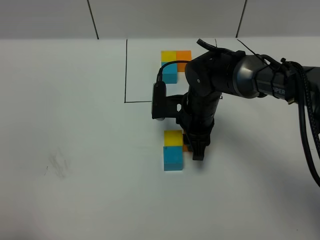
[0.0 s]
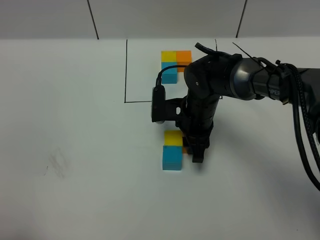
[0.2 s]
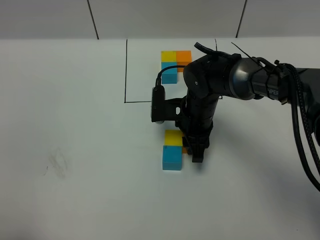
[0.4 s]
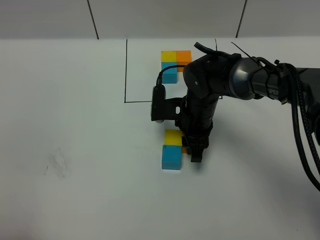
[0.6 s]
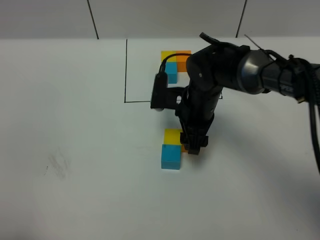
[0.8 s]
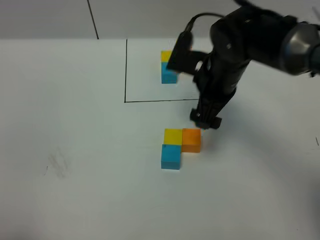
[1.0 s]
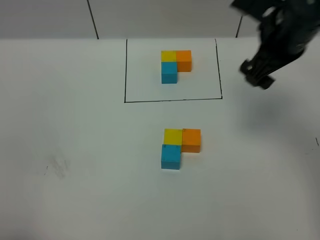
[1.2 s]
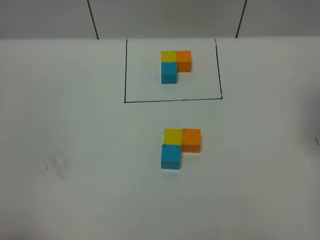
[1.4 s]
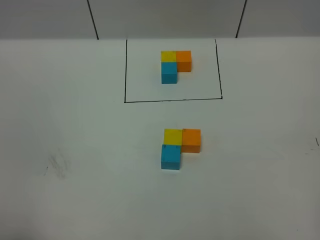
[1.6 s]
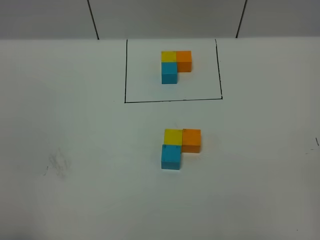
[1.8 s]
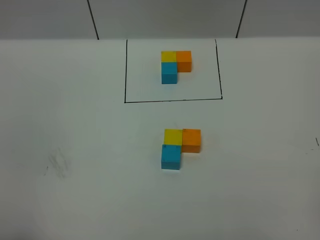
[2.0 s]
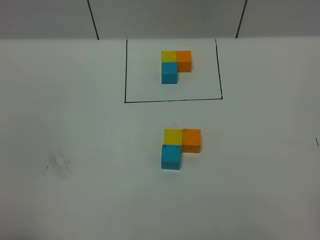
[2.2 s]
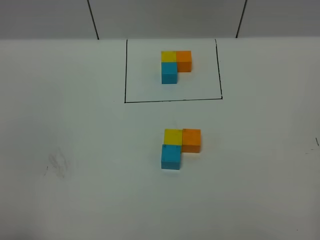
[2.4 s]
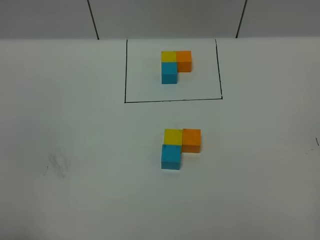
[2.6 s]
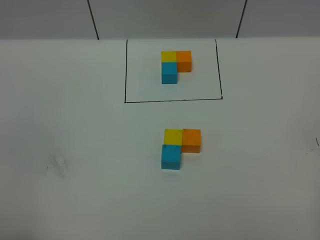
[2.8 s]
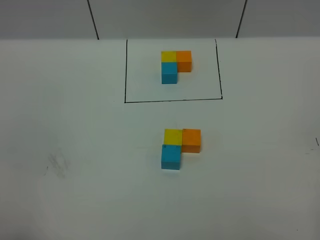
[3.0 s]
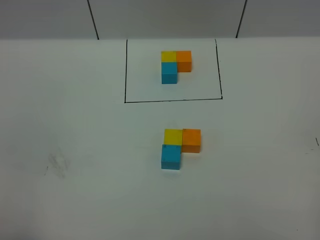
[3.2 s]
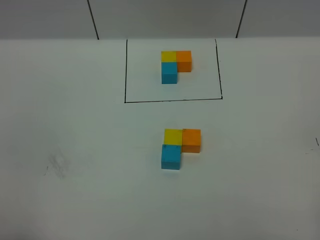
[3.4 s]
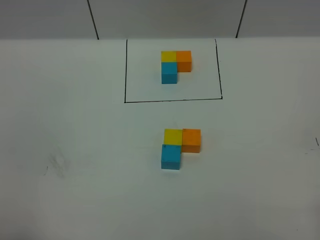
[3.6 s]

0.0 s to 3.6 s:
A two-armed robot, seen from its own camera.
Task of the whole recording: According to the building block template in front, assemble the scattered blocks together.
0.0 to 1.8 s: The right gripper goes some 50 cm to the right, backward and upward, and opens.

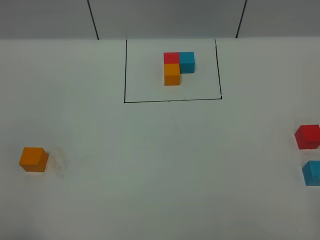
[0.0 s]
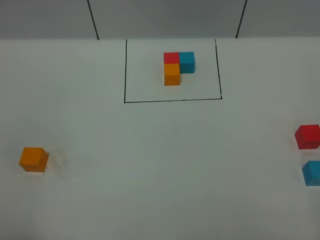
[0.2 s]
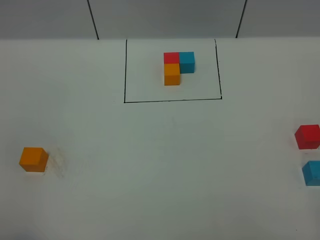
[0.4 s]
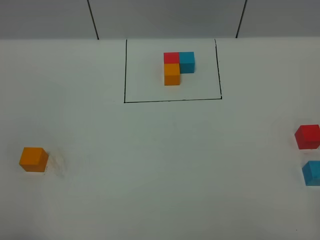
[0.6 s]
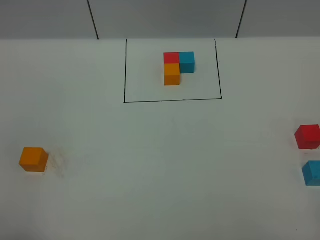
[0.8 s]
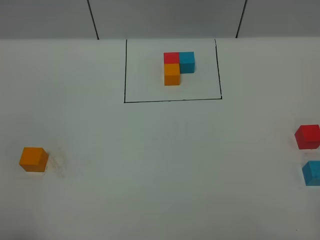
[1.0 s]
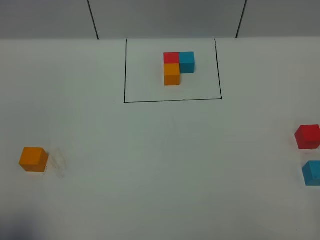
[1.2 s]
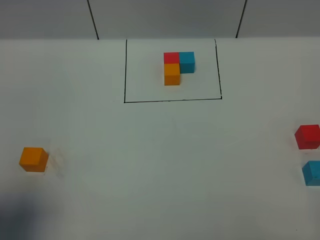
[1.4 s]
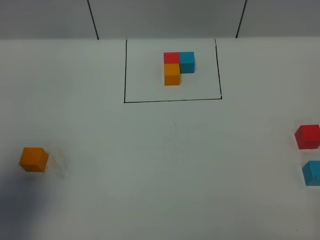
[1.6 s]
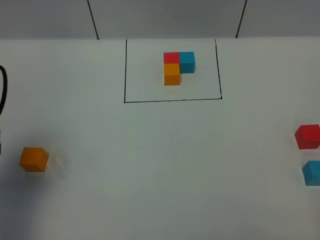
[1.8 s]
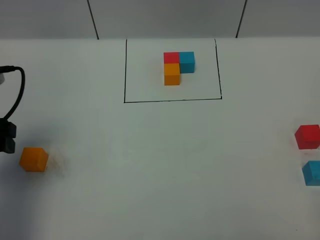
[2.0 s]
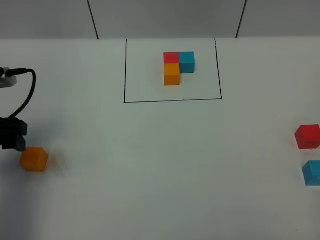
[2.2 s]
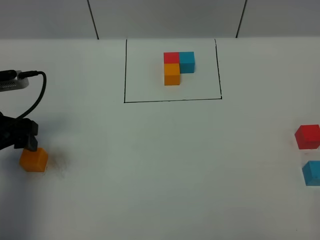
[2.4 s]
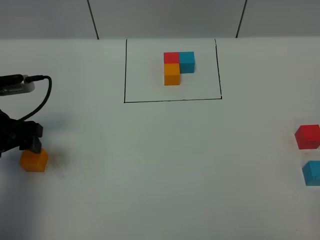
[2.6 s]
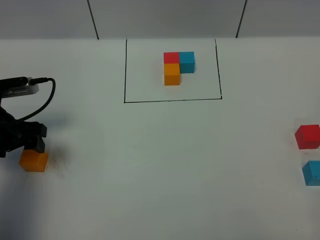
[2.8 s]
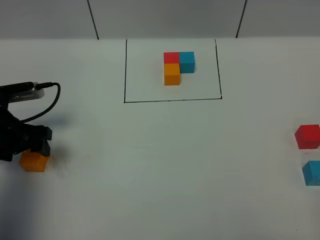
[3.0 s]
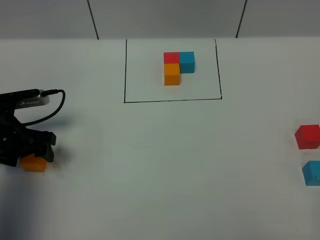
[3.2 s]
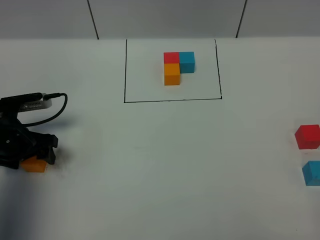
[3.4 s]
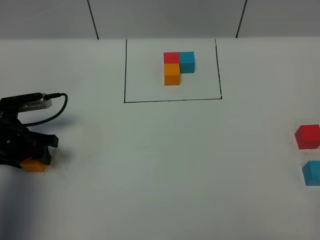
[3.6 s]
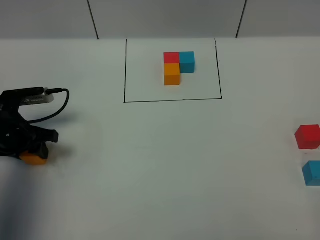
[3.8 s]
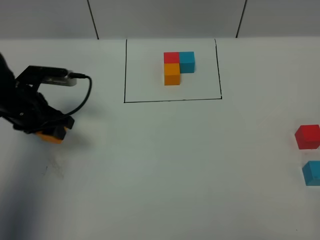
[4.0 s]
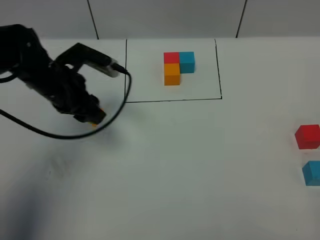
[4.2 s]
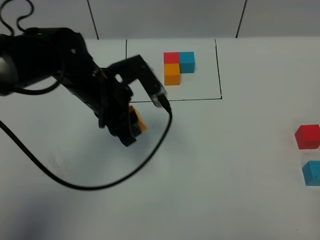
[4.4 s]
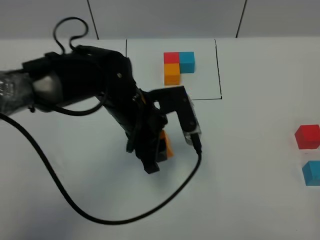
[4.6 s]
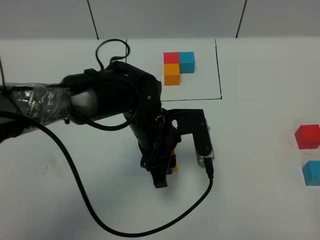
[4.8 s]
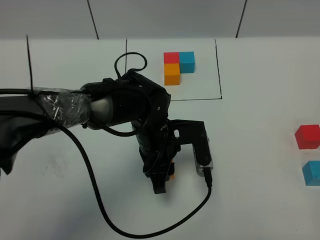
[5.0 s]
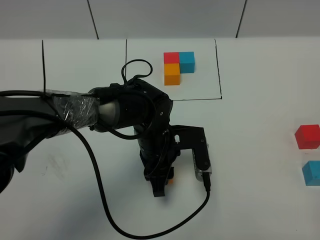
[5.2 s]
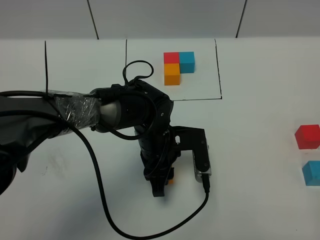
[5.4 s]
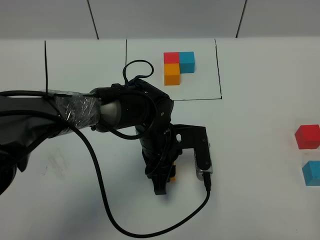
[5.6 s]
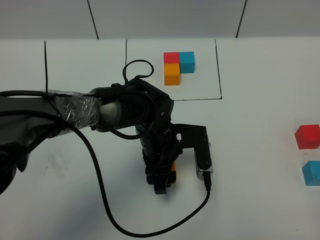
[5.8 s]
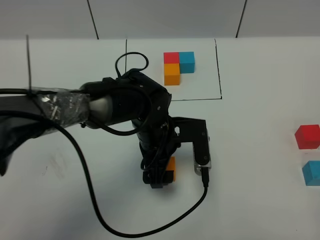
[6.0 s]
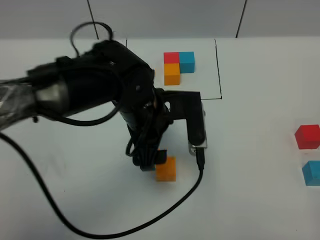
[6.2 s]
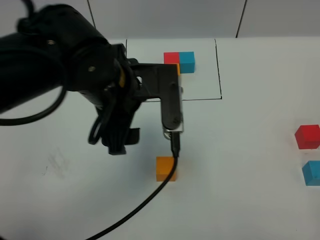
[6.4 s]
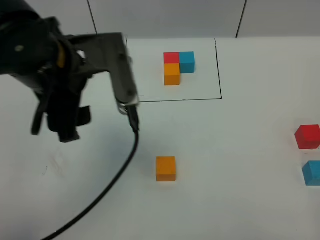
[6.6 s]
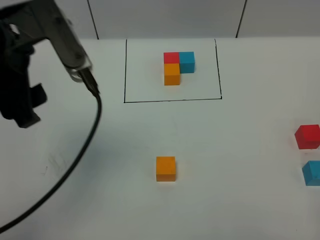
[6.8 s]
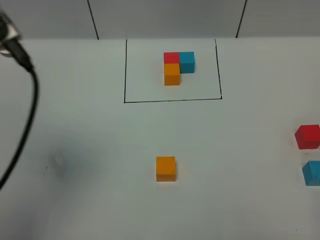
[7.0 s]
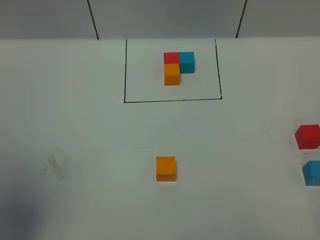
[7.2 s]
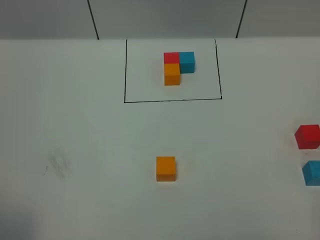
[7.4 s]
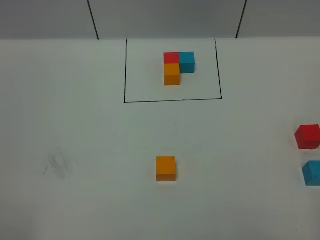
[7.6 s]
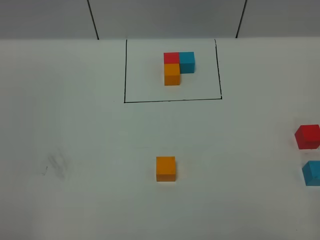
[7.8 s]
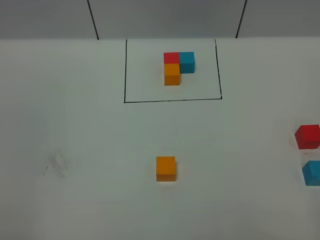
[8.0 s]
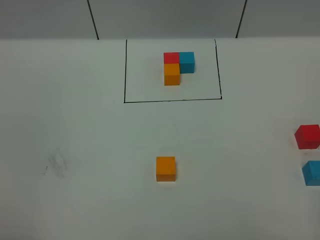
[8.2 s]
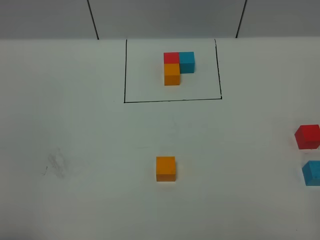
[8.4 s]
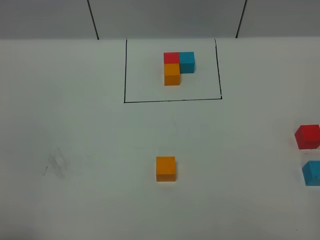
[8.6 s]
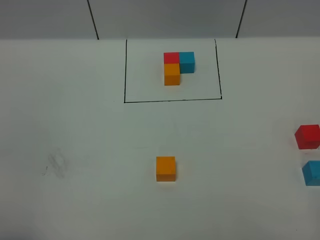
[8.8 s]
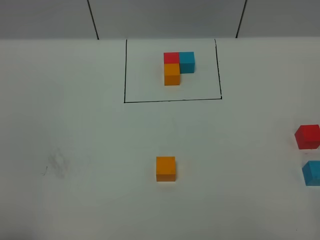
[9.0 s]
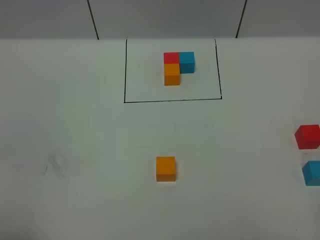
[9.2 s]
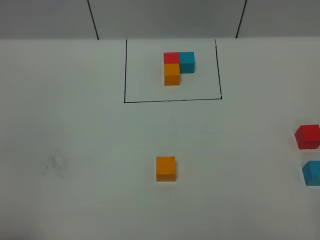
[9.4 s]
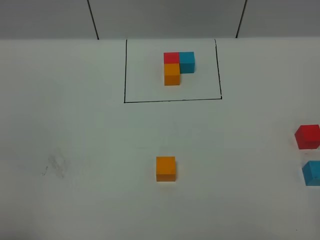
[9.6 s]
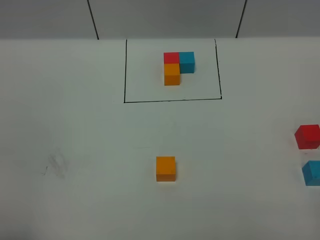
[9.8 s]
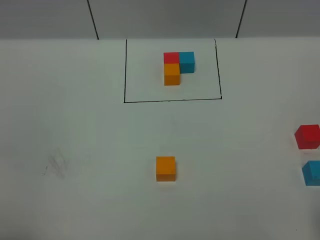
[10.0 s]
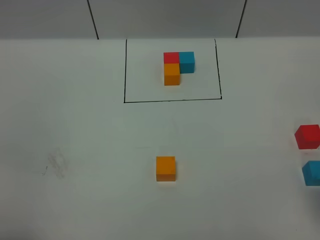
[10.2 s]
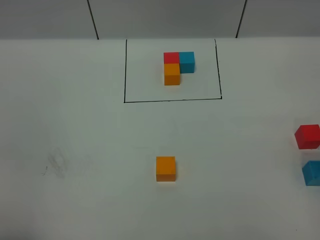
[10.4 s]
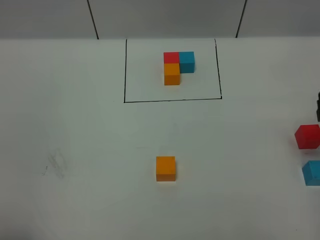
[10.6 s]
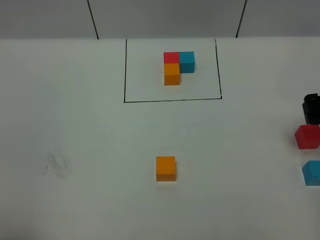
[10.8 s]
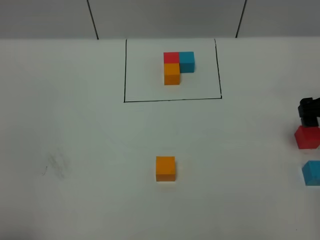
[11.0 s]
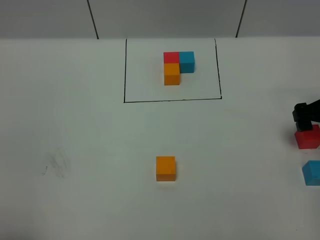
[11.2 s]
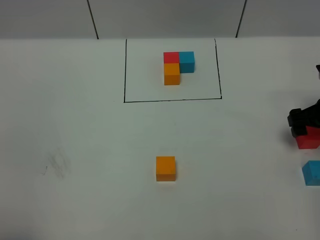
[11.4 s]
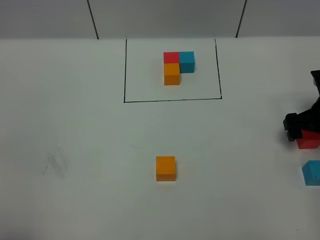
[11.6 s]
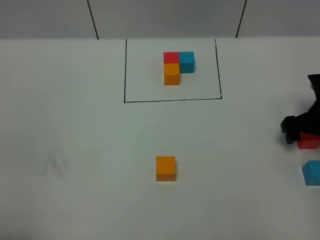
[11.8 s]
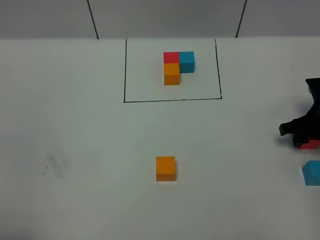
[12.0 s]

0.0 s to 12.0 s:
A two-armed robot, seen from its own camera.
Task of the whole recording: According to the building block template in front, assemble the scattered blocks together.
Step, 1.8 to 6.0 s: Put the orange cube in the center of the table.
0.0 to 1.6 s: The left gripper travels forward by about 15 cm.
1.6 to 3.0 s: The left gripper shifts approximately 20 cm downward and forward.
3.0 to 4.4 s: The left gripper heads to the right, covering some 20 cm, and closes up.
4.4 to 6.0 s: The left gripper travels to the right and downward by about 10 cm, and opens up.
6.0 to 7.6 s: The left gripper moves backward, to the left and upward, some 50 cm.
10.4 to 12.0 s: The right gripper travels downward and forward by some 20 cm, and closes up.

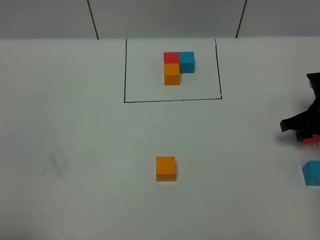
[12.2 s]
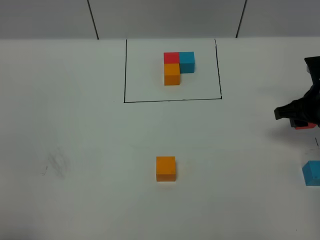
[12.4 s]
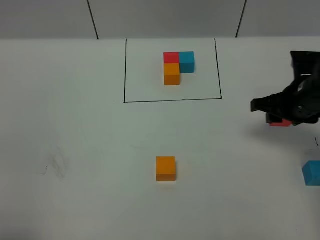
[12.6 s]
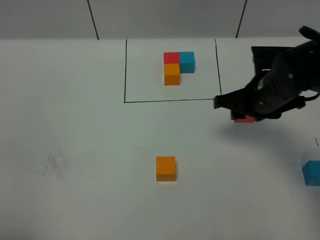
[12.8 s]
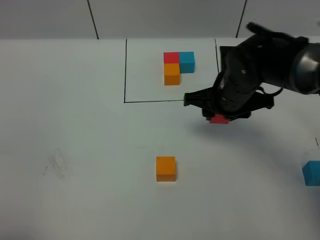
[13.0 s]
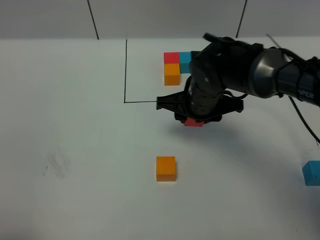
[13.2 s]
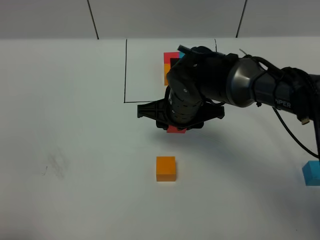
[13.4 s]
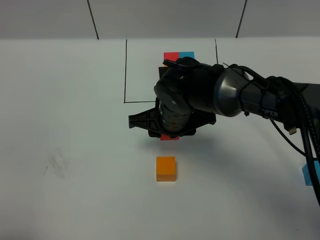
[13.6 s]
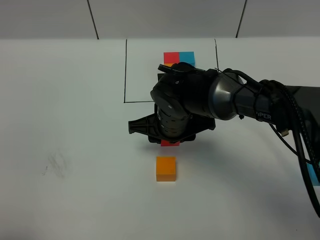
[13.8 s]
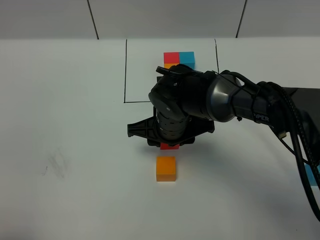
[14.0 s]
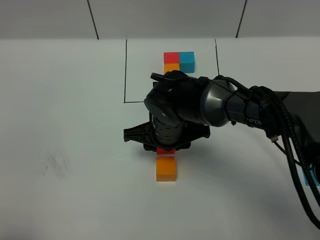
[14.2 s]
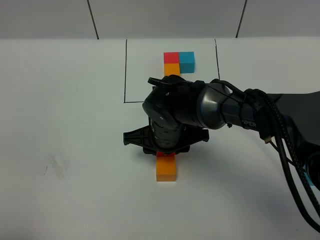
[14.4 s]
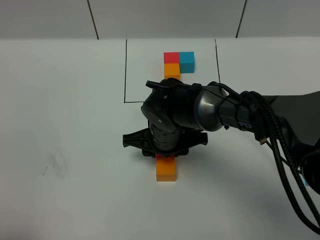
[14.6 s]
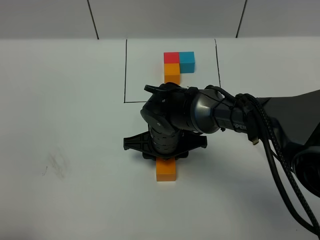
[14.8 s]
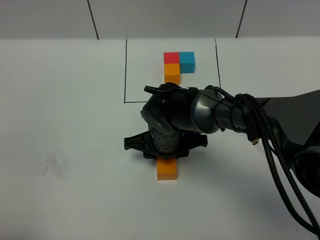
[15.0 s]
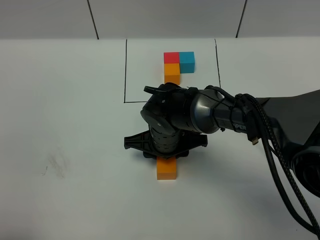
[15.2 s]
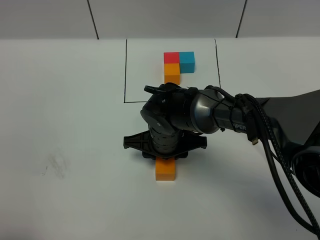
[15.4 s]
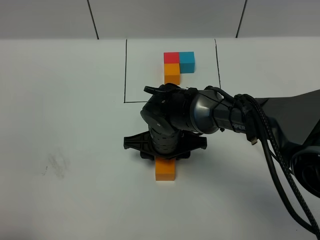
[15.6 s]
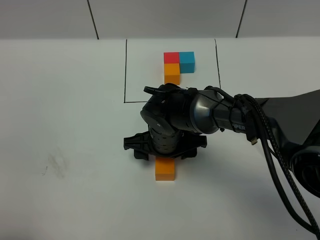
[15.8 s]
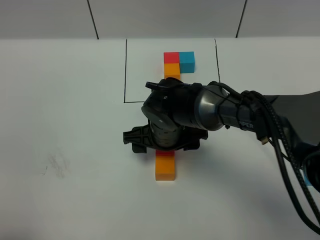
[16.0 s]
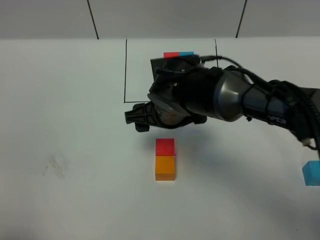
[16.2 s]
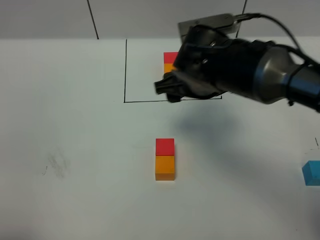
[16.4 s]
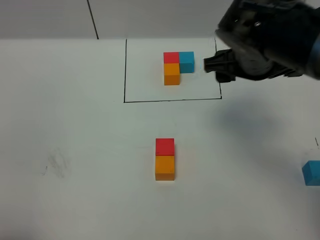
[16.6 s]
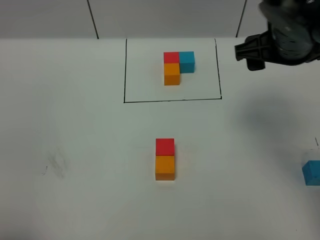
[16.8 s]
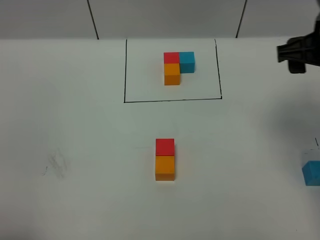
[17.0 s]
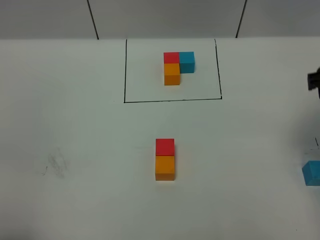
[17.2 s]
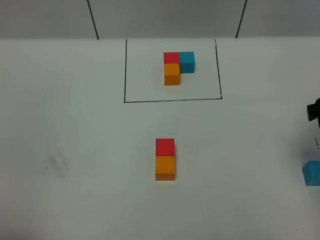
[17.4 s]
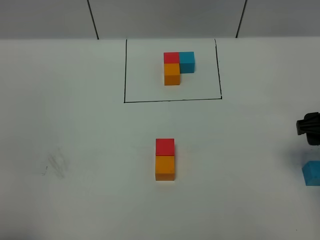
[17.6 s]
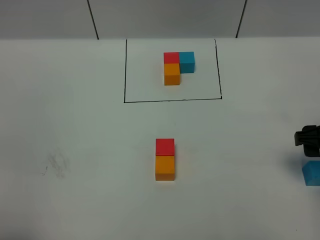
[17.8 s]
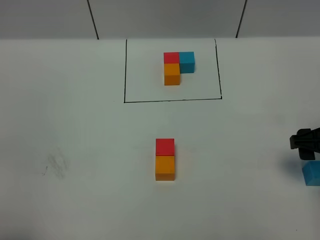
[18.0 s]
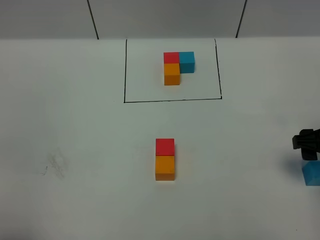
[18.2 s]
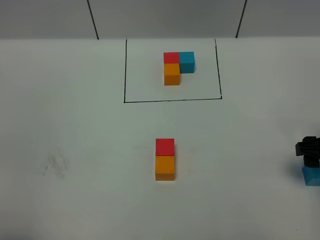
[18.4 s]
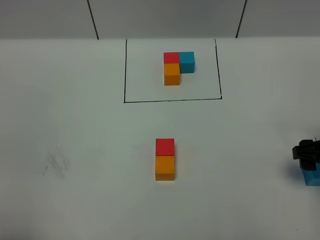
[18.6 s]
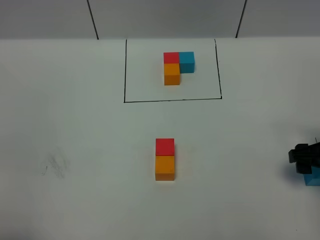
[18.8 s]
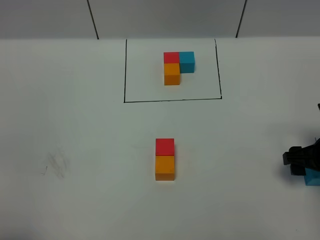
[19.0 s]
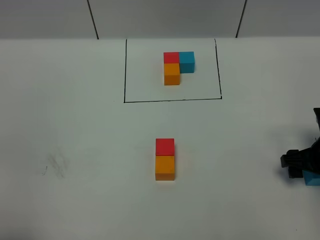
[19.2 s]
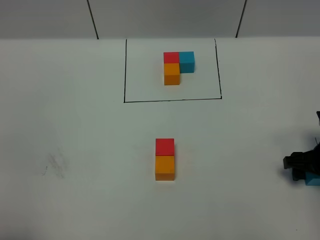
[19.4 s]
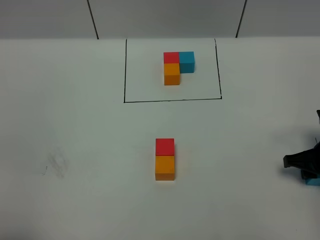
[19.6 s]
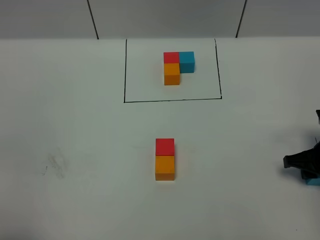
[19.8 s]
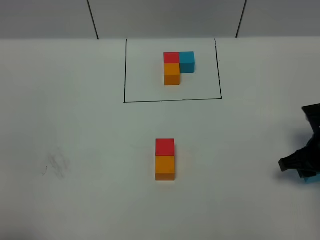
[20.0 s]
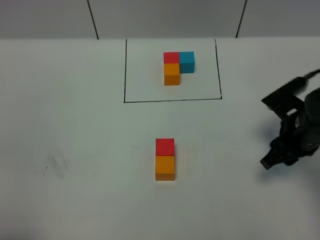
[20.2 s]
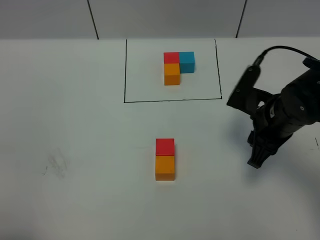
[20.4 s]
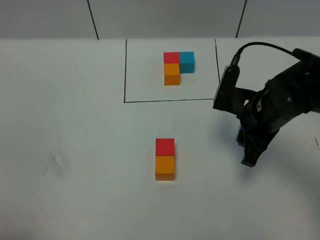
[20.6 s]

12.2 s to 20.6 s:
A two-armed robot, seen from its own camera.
Task of the whole recording: According to the building block template in front, assemble the scattered blocks together.
Step, 12.2 to 16.0 s: Put the red cube on the behind of the orange cube.
12.2 to 13.6 s: The right gripper is displaced to the left by approximately 30 cm.
13.6 to 15.0 s: The right gripper ends up some 5 cm from where it was.
15.0 to 16.4 s: The right gripper goes about 15 cm upward and to the right, and opens up.
16.4 to 17.8 s: The right gripper goes some 20 cm to the right.
17.8 to 19.2 s: The right gripper goes some 10 cm downward.
19.2 to 20.6 s: The right gripper moves to the left and upward, some 15 cm, and closes its fingers.
